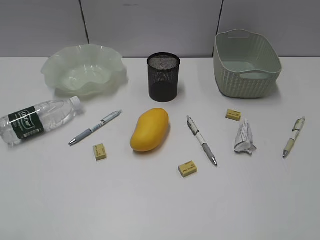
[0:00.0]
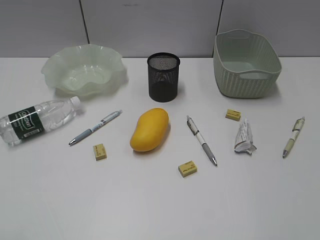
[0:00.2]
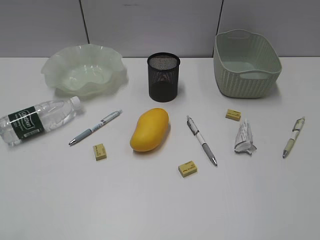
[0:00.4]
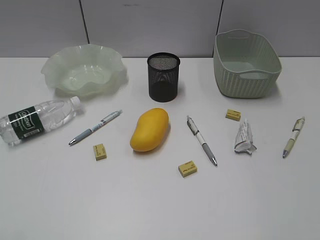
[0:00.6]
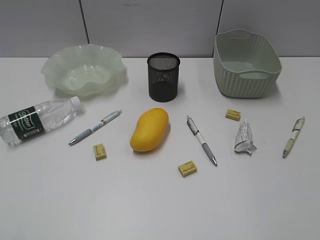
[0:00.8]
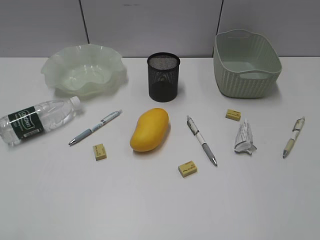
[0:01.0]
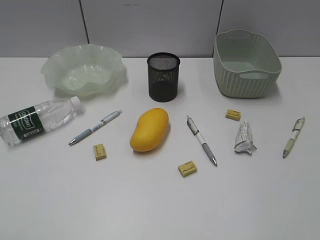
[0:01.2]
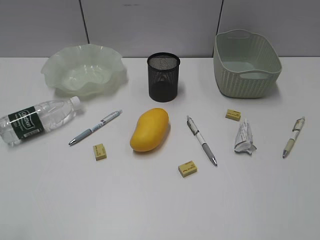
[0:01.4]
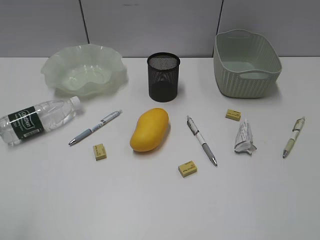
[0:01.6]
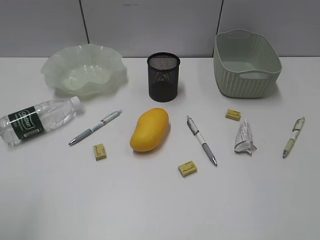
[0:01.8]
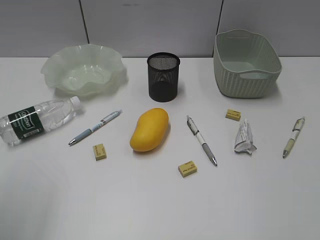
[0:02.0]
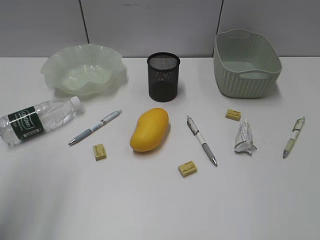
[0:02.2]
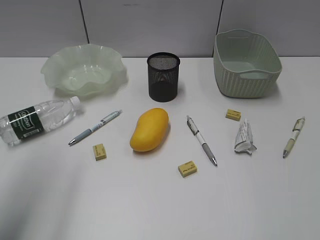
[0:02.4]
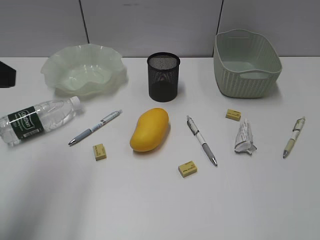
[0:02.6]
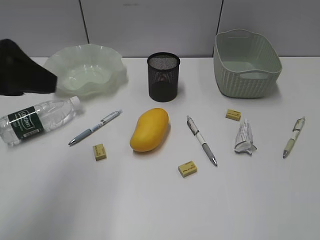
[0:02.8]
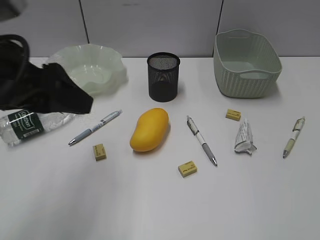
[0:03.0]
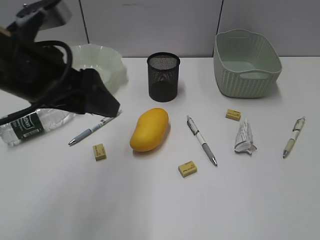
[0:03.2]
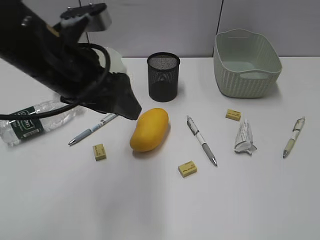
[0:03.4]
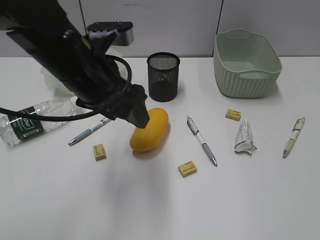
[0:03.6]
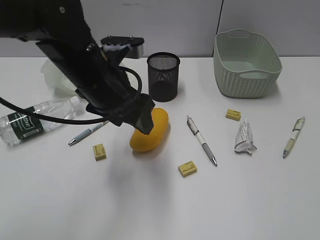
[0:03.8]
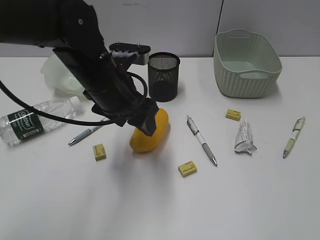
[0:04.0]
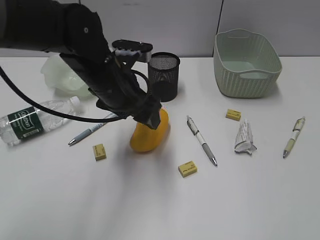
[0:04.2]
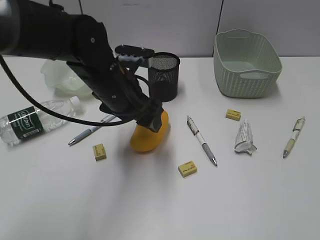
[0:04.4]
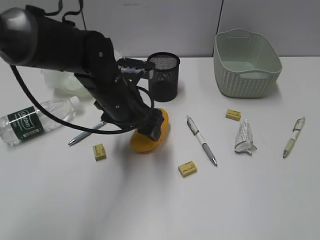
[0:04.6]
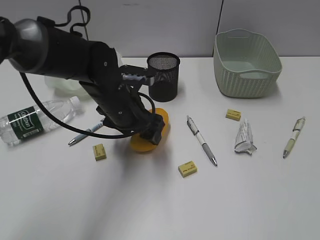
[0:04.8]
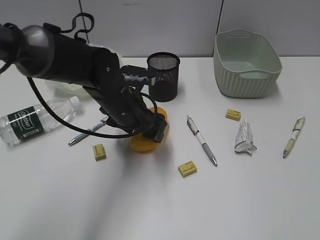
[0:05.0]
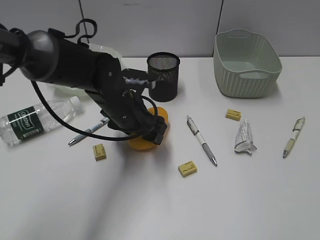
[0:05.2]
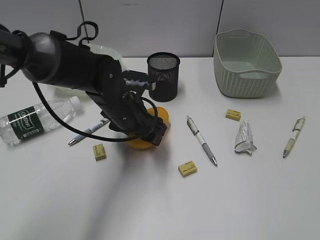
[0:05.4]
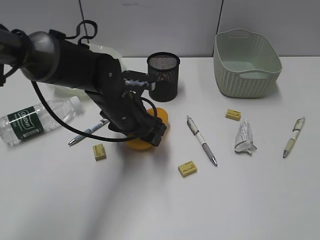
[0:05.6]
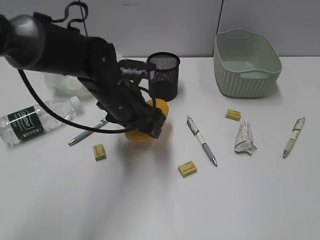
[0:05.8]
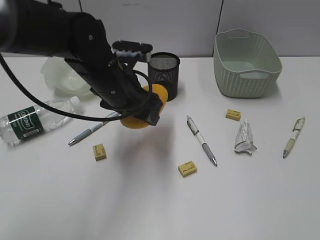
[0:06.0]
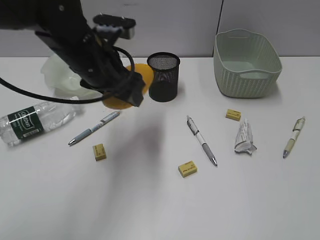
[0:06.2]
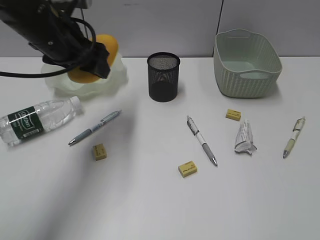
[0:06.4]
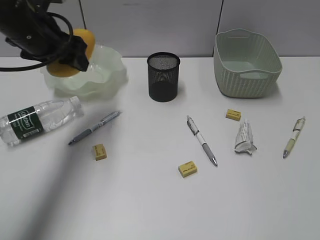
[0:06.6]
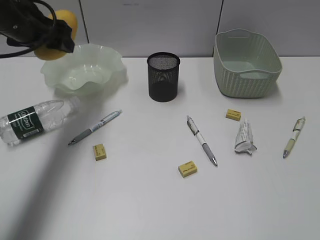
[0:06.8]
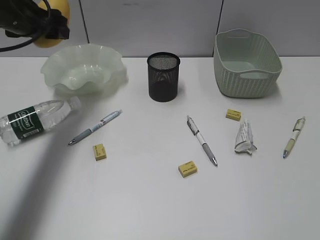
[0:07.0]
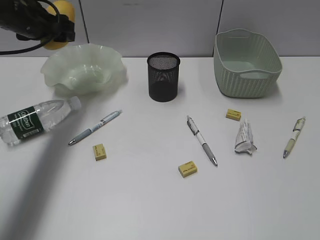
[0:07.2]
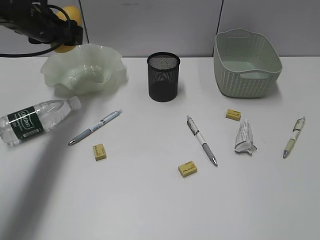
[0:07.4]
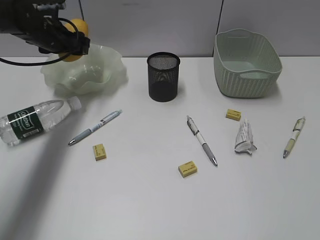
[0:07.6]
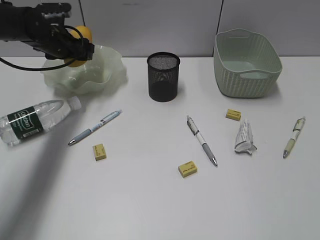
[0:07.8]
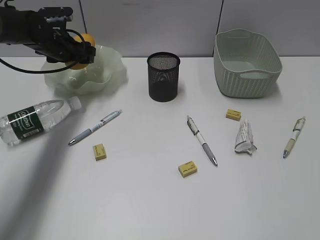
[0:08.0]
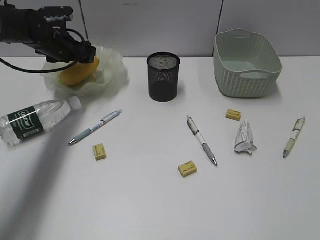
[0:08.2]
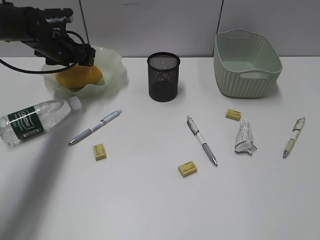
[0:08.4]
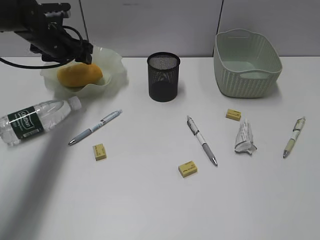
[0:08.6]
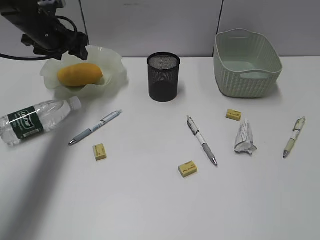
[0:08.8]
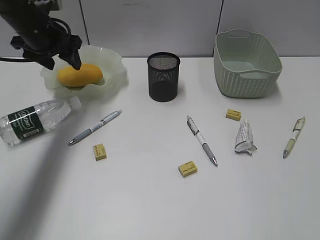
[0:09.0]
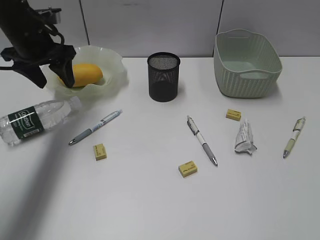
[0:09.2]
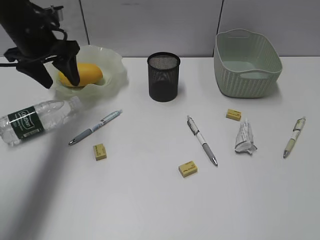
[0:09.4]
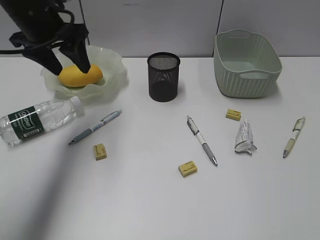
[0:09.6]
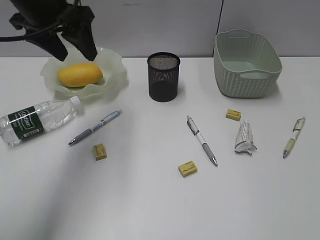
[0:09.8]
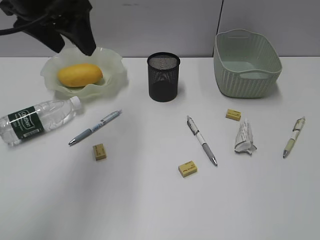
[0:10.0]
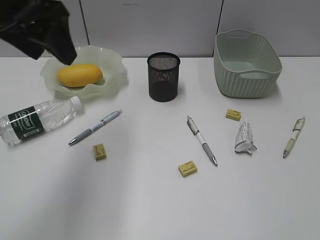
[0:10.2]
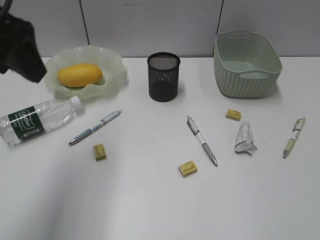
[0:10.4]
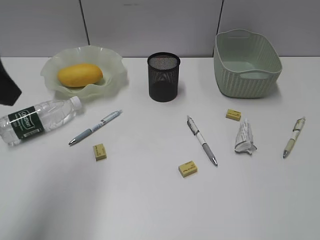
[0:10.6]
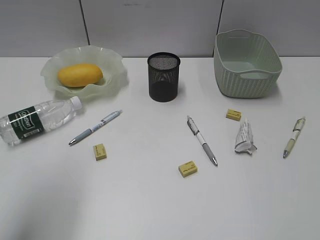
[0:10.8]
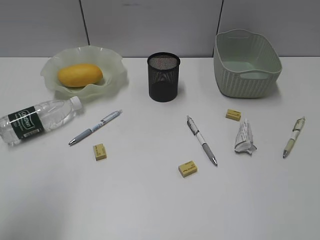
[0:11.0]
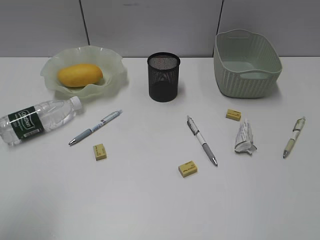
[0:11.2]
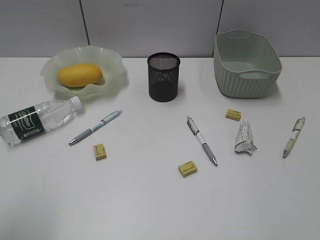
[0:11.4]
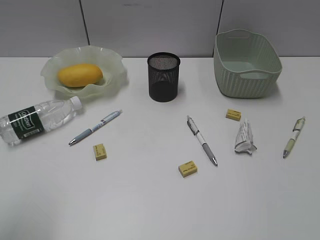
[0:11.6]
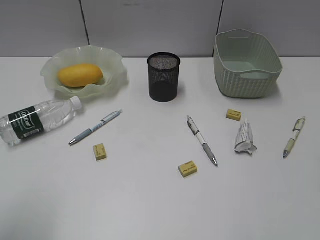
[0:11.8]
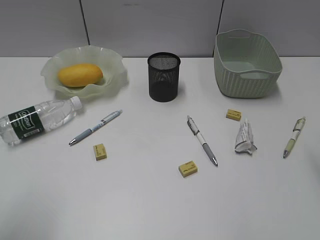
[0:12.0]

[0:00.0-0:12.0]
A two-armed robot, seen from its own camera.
Step, 0:02.6 to 0:05.4: Grasp the mango with left gripper.
Step, 0:05.6 to 0:08.6: Place the mango in the plate with left gripper.
0:01.6 to 0:03.0: The left gripper heads forward and to the right, covering approximately 20 cm.
0:03.0 to 0:04.4: The left gripper heads to the right, forward and downward, covering roughly 20 cm.
0:04.4 to 0:06.0: The left gripper travels downward and back again, some 5 cm each way.
0:06.0 to 0:07.6: The left gripper heads forward and to the left, covering some 25 cm.
0:07.6 to 0:09.0: The left gripper travels backward by about 5 cm.
0:09.0 to 0:10.4: The left gripper is displaced backward and upward by approximately 25 cm.
0:10.4 to 0:12.0: The left gripper shifts roughly 20 cm backward, to the left and downward.

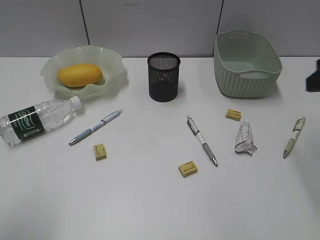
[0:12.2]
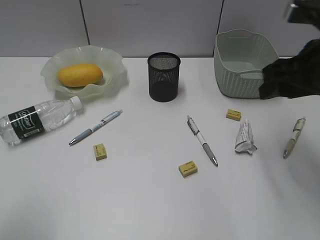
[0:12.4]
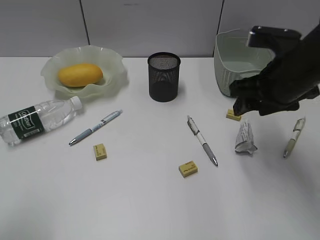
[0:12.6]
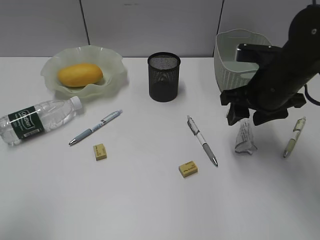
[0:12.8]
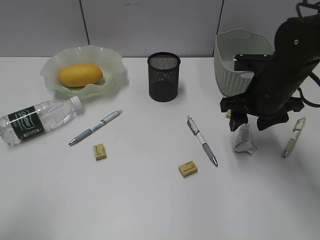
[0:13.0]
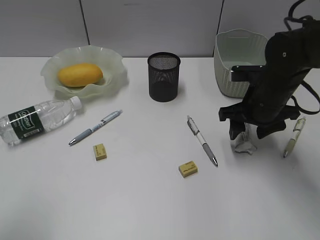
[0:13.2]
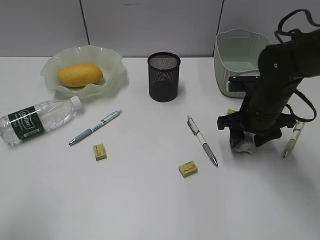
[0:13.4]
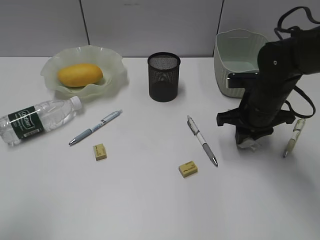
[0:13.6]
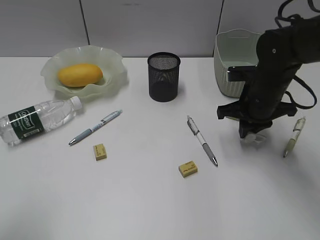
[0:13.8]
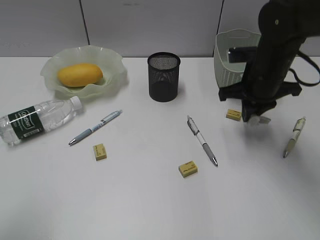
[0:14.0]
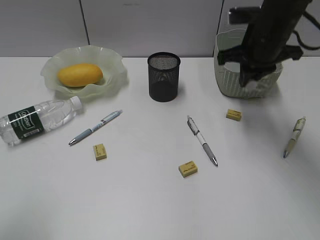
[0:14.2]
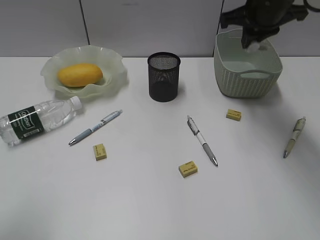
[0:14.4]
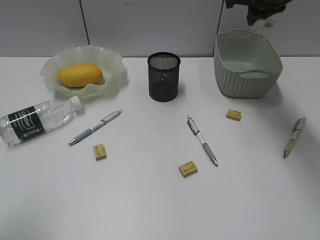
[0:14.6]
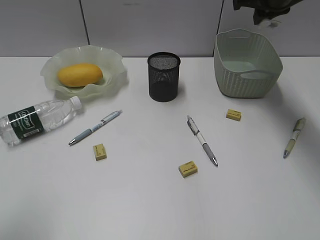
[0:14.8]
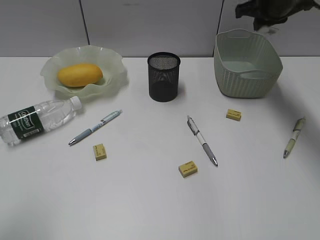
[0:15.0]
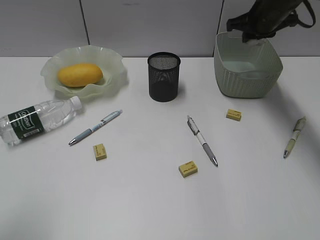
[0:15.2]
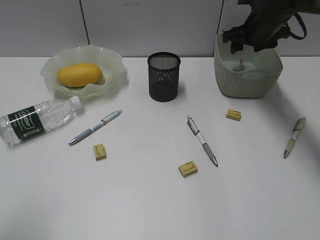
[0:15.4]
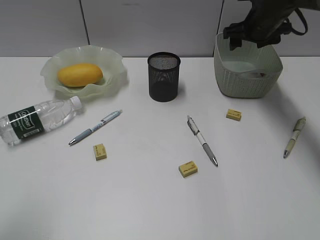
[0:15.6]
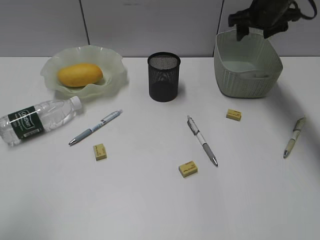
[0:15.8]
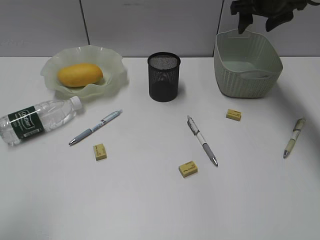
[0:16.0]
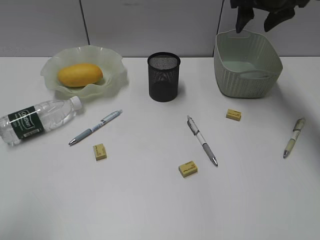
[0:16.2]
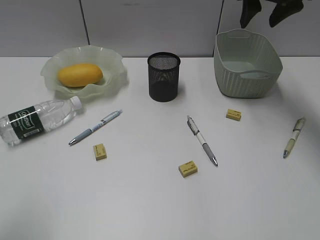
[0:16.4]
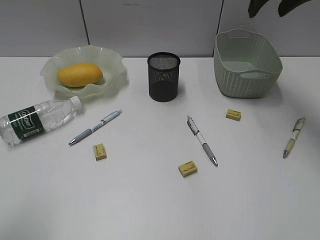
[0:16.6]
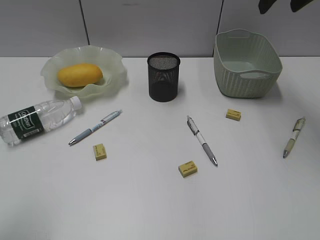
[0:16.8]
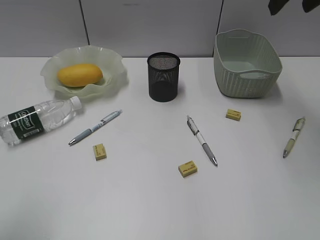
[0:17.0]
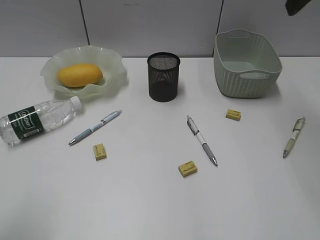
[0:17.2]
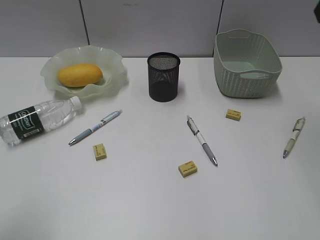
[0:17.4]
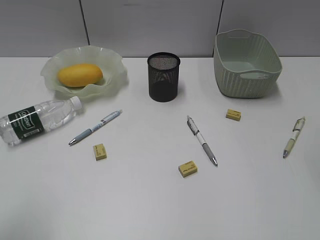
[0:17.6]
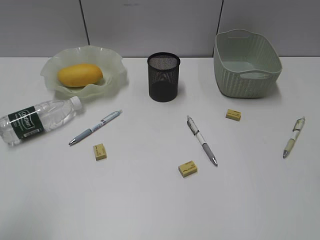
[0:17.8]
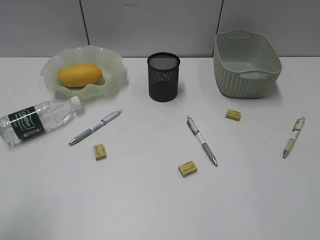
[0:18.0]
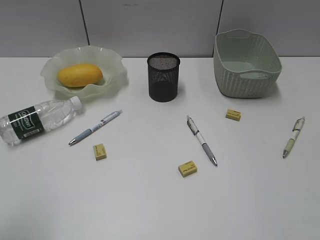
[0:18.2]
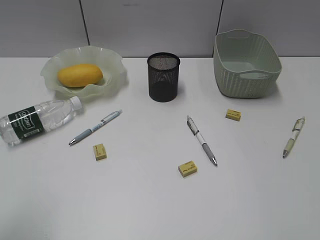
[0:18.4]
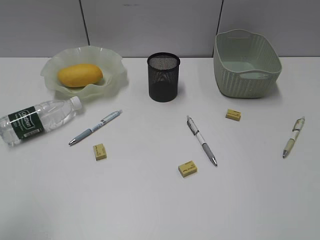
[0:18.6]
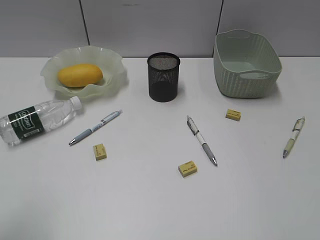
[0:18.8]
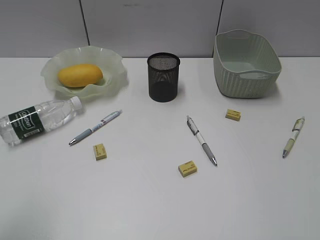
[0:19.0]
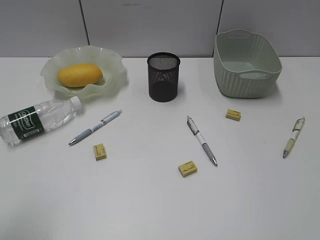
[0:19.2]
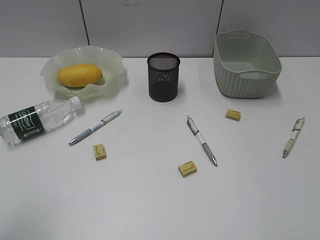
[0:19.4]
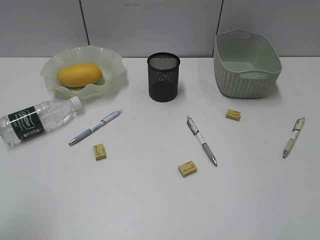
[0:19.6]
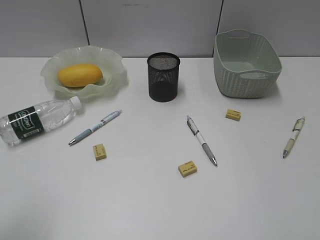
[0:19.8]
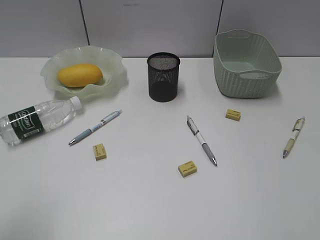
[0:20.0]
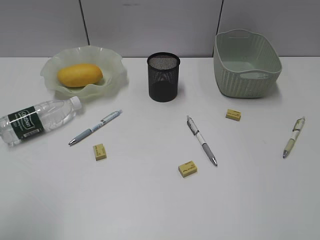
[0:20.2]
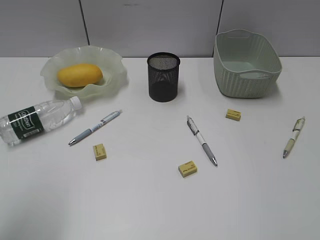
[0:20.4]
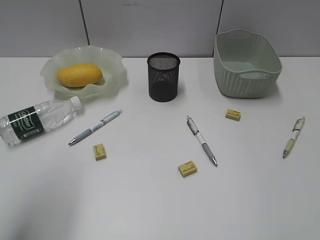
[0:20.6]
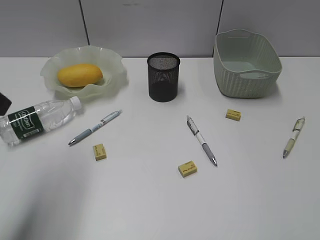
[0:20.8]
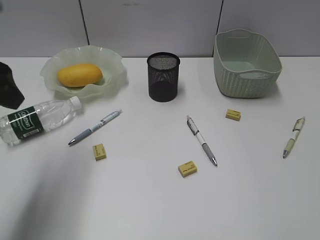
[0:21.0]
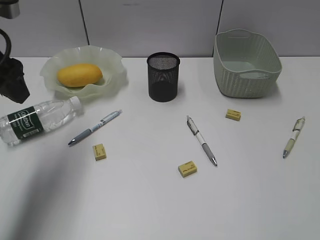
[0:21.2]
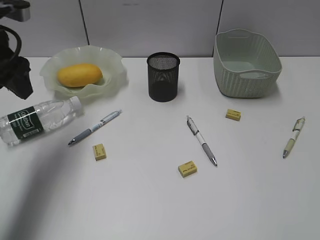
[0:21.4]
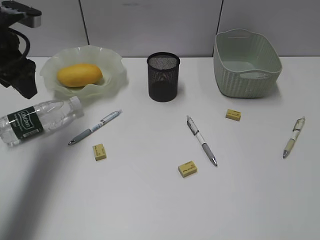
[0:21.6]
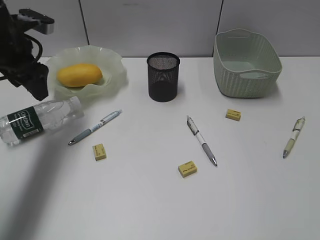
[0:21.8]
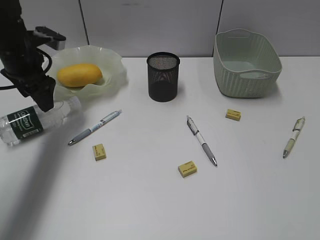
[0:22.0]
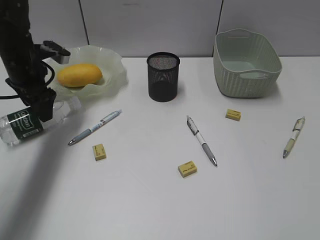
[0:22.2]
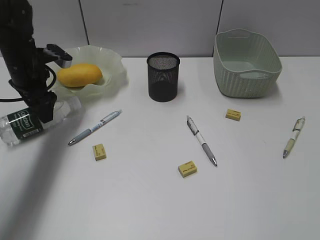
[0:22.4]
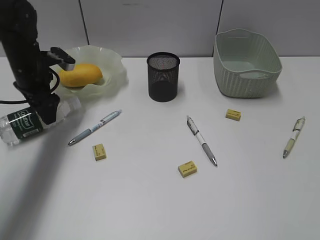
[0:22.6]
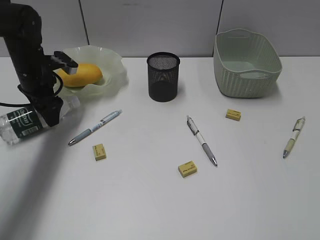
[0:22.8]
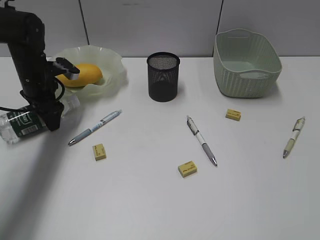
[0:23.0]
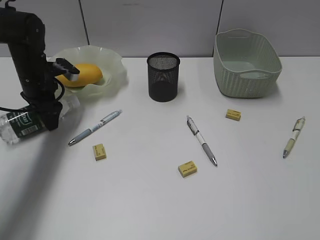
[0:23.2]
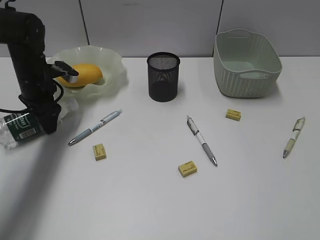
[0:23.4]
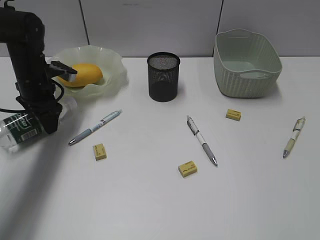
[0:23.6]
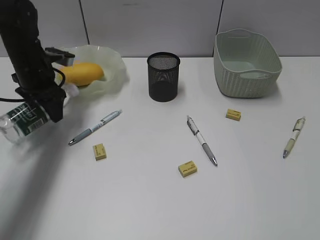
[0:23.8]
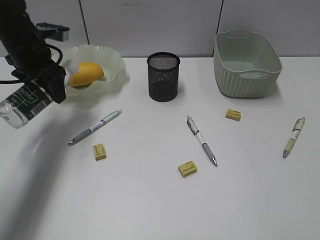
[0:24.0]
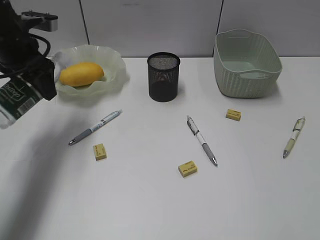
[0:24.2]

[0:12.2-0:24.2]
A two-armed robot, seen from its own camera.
Step, 0:13.8 to 0:15.6: Place the waste paper in the basket with right gripper.
Step, 0:15.8 to 0:23.4: Grasp the bottle with left gripper.
0:12.2 to 0:13.8: The right gripper is displaced downward, forward and to the left by approximately 20 cm, and closes up.
0:13.8 to 0:15.2: The right gripper travels forward and upward by some 15 cm.
0:15.2 to 0:16.6: The right gripper is displaced upward and backward by some 15 cm, and opens its fingers.
0:16.6 to 0:18.2: The right gripper is displaced backward by approximately 40 cm.
0:19.8 to 0:21.2: The left gripper shifts some 20 cm forward.
0:21.2 to 0:22.6: The left gripper moves forward and downward, some 20 cm.
0:22.6 to 0:24.2: The left gripper heads upward, covering about 10 cm.
